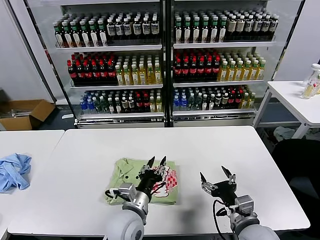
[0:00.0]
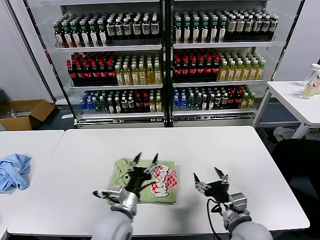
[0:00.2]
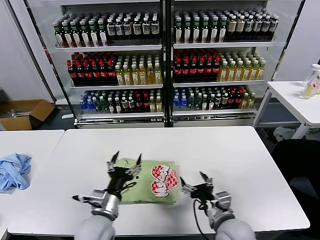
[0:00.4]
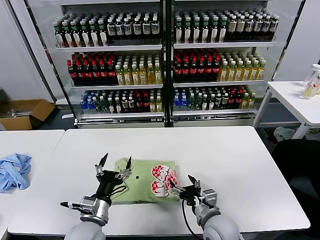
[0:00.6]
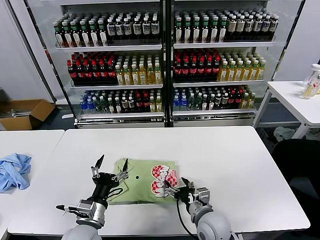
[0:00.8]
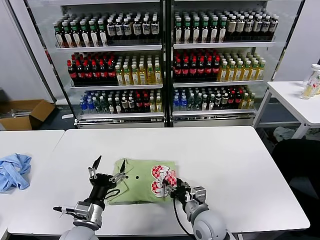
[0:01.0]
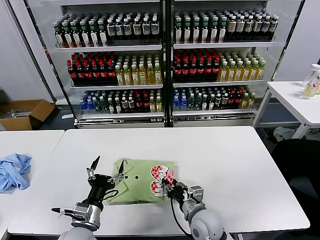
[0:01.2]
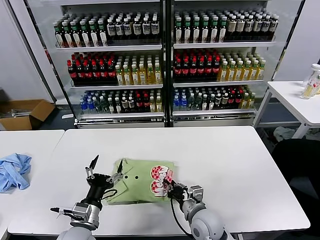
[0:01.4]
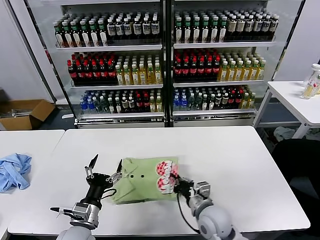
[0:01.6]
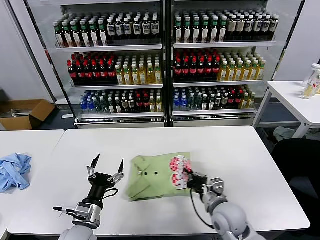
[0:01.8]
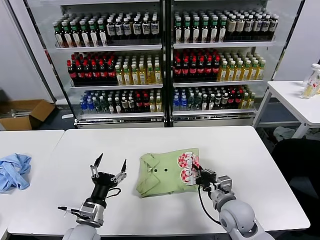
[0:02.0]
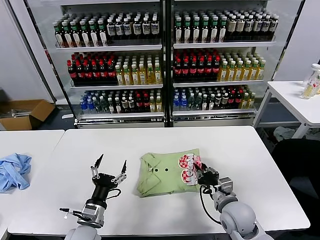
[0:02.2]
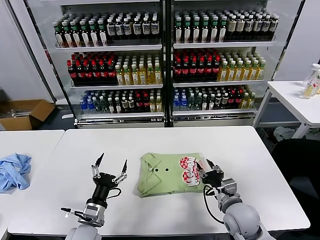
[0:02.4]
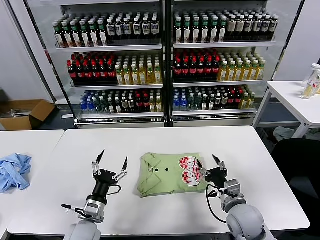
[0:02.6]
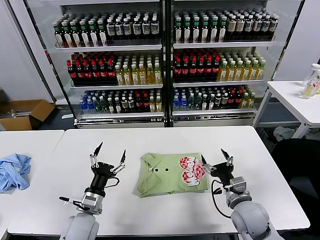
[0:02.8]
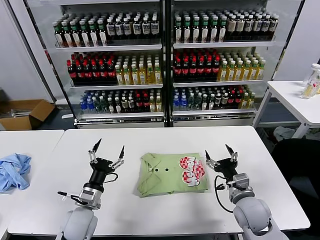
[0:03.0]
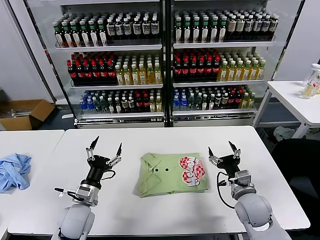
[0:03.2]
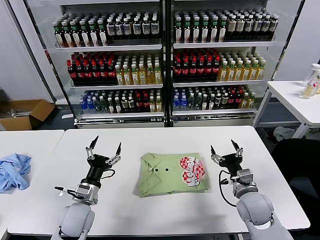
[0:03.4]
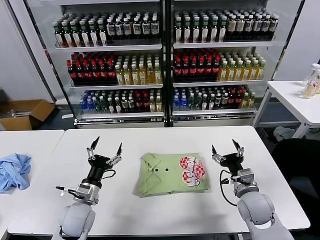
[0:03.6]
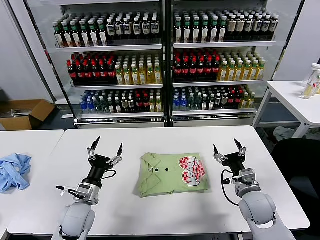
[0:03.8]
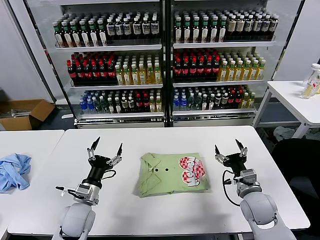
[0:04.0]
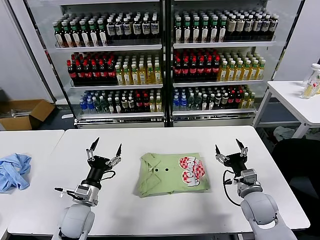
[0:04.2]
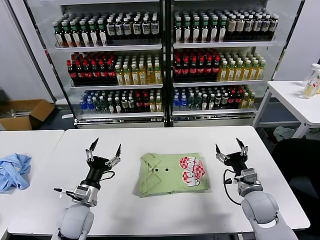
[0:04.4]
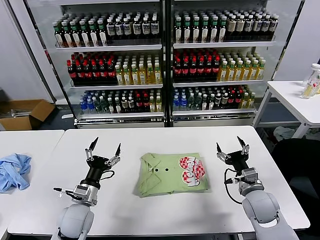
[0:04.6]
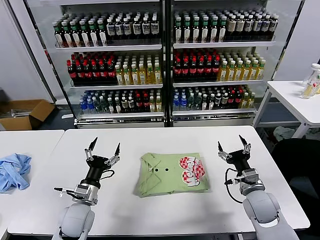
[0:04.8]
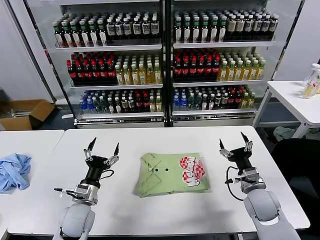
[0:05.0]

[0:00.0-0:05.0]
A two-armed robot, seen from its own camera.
Task of the whole recording: fold and organize the clothes.
Step, 0:00.2 to 0:02.4: Drag the clothes to the center of the table.
0:00.0 to 0:01.6: The left gripper moves to the left, about 15 cm, and opens its fingers. Meanwhile the right gripper shifts about 15 cm to the left, forward and downward, and closes.
0:01.6 to 0:03.4: The right gripper moves to the right, roughly 15 cm, and opens its fingers. Meanwhile the left gripper travels forward by approximately 5 cm.
0:03.4 to 0:05.0: The grippers stay close to where they were, moving slightly.
